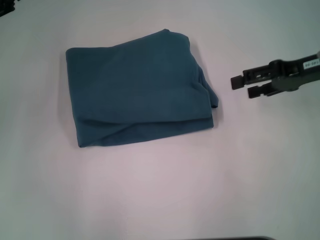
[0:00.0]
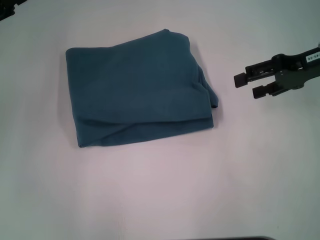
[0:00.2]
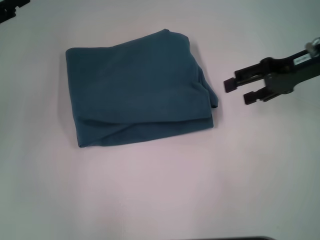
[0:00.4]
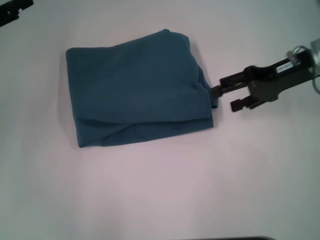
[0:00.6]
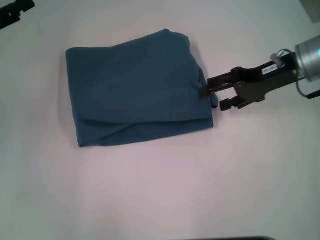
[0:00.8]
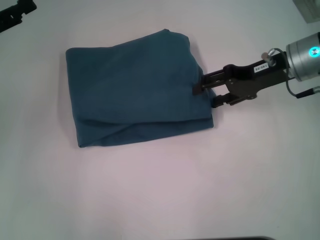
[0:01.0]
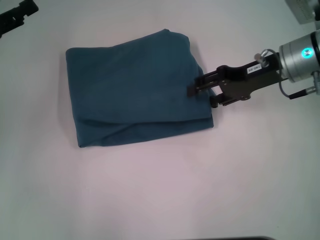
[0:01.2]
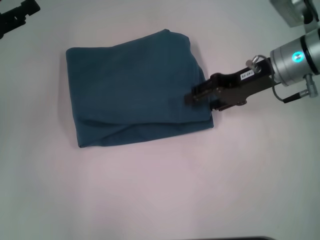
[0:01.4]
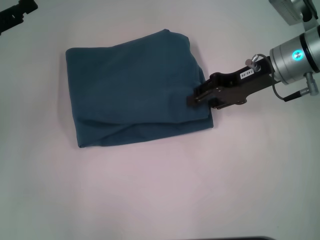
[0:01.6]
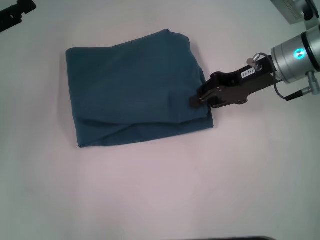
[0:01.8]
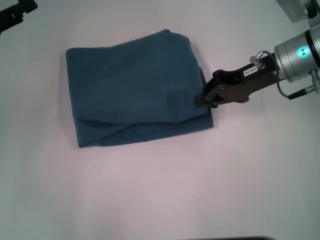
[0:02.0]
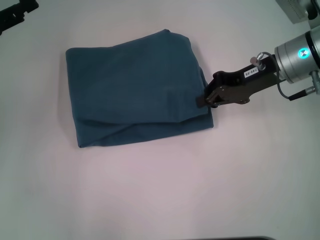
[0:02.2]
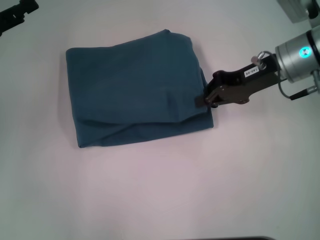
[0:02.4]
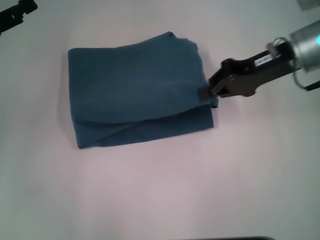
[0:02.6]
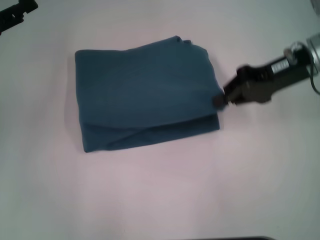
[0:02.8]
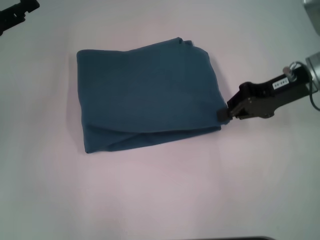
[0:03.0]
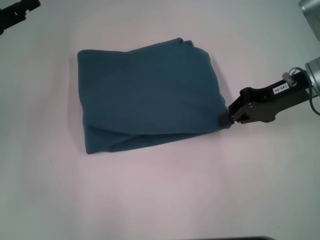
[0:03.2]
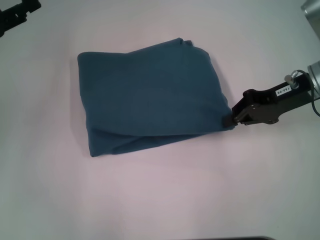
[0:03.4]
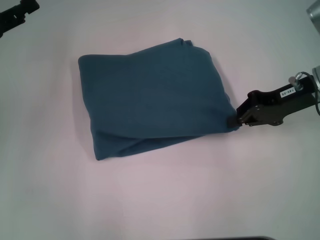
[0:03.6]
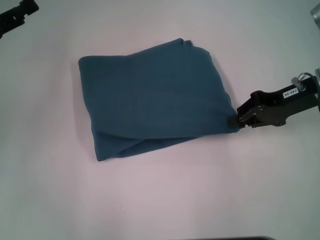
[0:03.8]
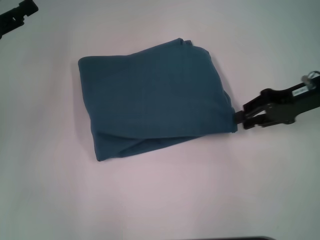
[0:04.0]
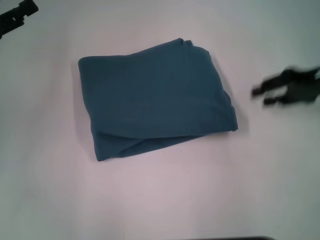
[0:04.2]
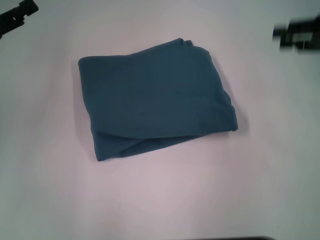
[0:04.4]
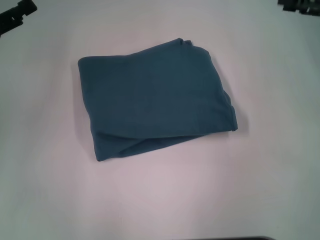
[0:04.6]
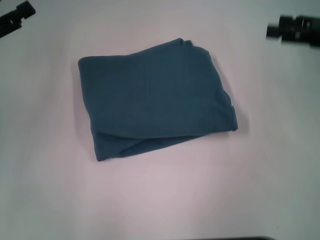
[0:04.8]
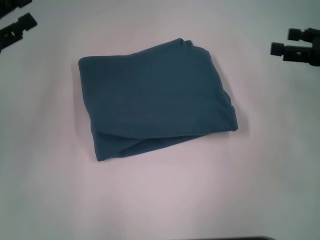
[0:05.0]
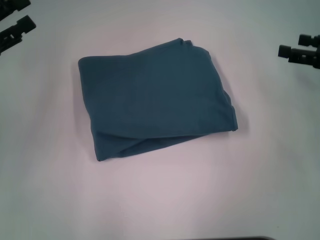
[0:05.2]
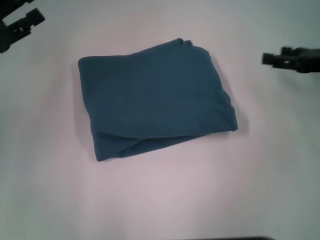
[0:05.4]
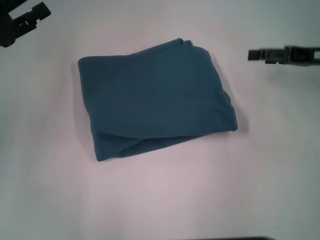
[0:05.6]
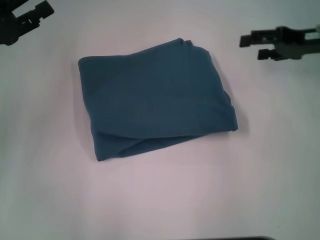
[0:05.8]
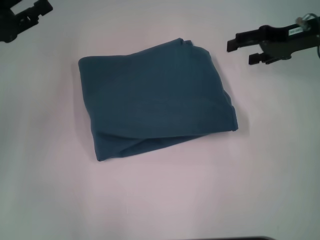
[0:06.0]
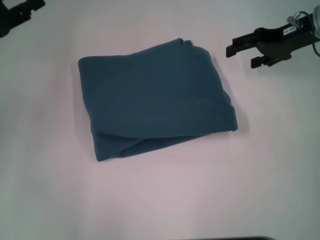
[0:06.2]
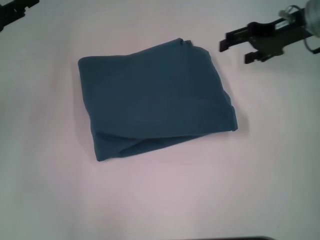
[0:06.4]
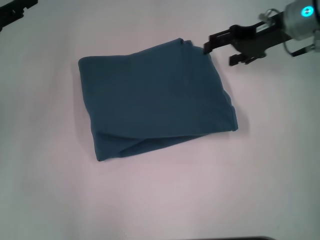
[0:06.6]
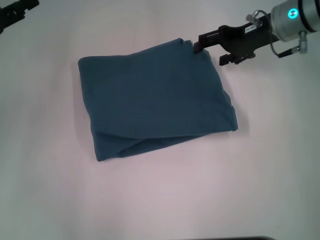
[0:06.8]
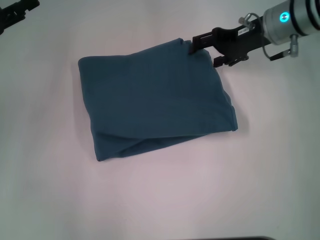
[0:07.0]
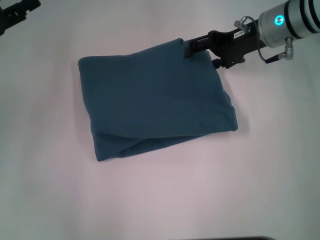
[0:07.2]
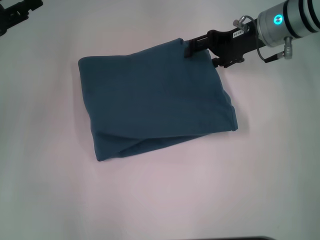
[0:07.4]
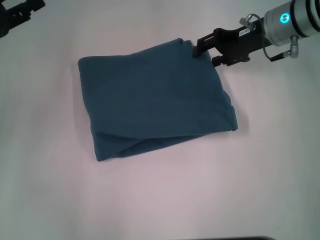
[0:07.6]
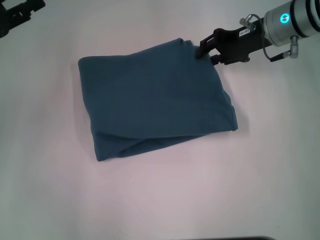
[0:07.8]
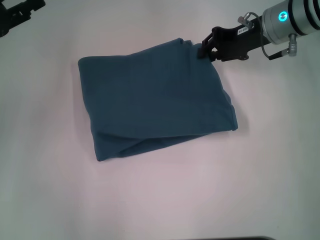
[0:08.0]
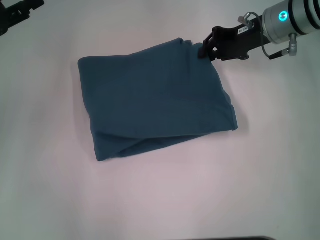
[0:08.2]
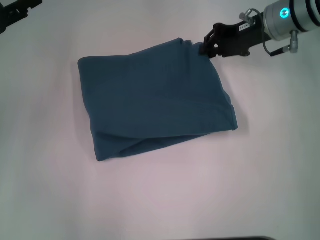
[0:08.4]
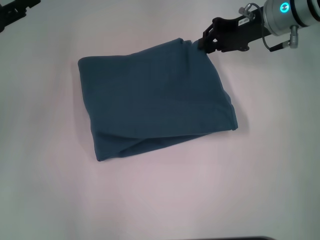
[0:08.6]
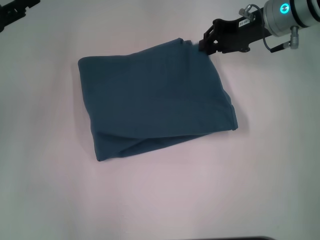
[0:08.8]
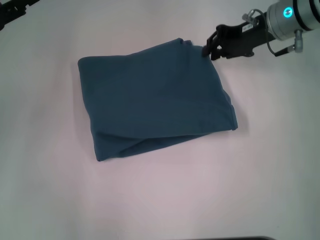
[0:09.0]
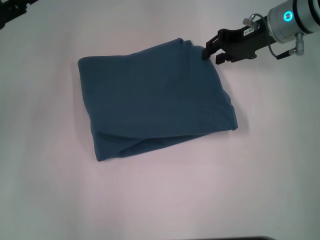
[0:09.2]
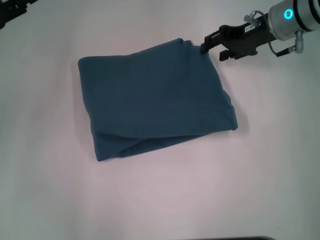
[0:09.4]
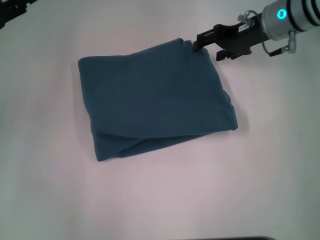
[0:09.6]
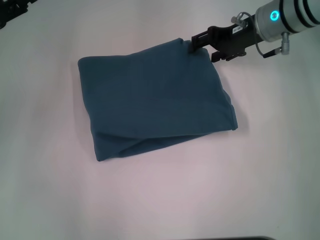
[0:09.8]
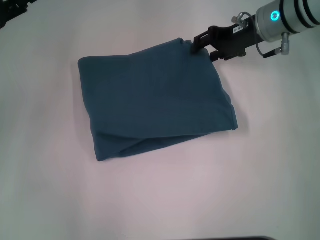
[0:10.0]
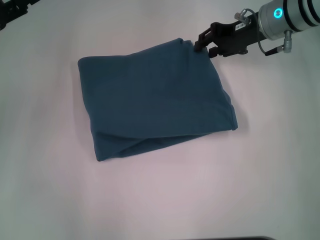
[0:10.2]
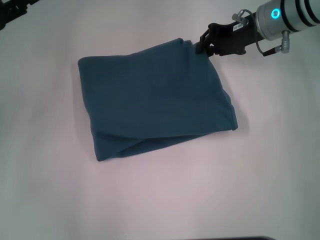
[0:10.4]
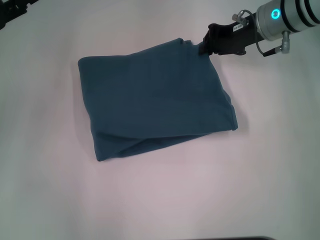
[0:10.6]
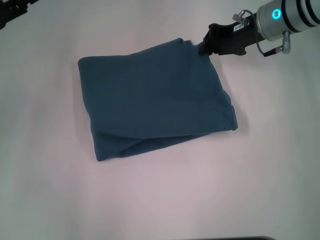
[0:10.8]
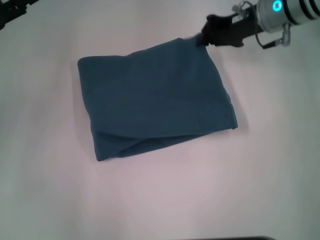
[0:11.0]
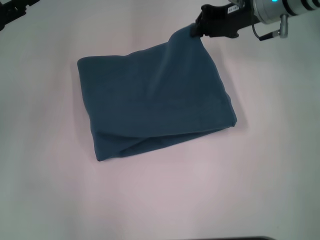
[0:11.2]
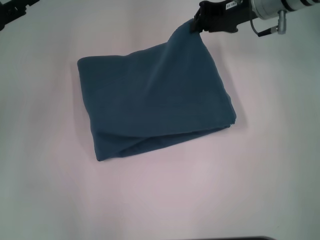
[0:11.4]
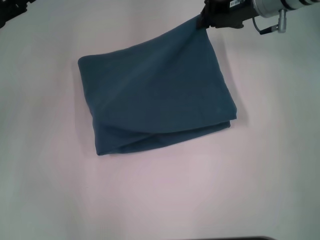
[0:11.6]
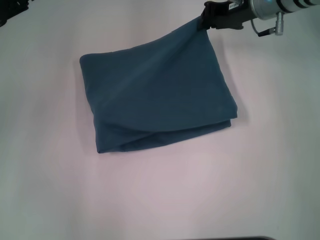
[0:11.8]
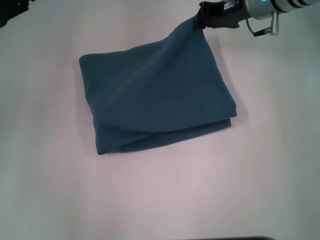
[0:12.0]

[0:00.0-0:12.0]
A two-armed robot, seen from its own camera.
0:00.0 to 0:01.6: The right gripper heads to the left, covering roughly 10 cm.
0:01.6 to 0:03.0: The right gripper closes.
0:03.0 to 0:04.4: The right gripper heads to the right, covering about 10 cm, and opens up.
0:04.4 to 0:06.0: The right gripper shifts about 10 cm to the left and forward, and opens up.
0:06.0 to 0:07.6: The right gripper shifts roughly 5 cm to the left.
0:07.6 to 0:09.0: The right gripper closes.
0:09.0 to 0:10.4: The right gripper opens and closes again.
0:10.4 to 0:12.0: The right gripper closes its fingers.

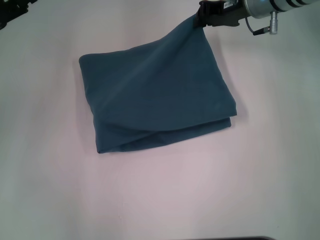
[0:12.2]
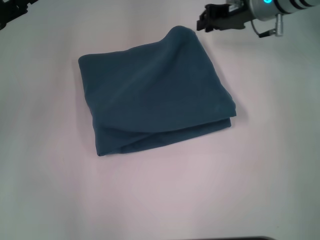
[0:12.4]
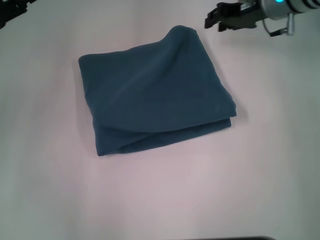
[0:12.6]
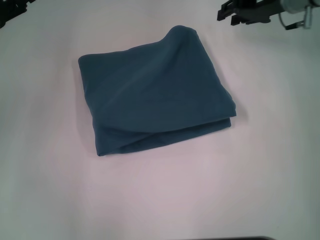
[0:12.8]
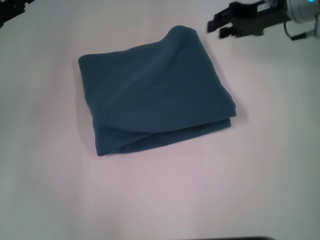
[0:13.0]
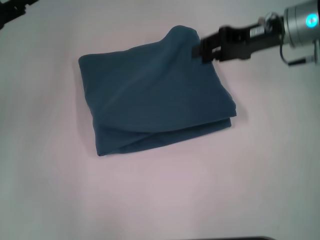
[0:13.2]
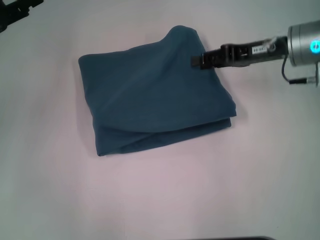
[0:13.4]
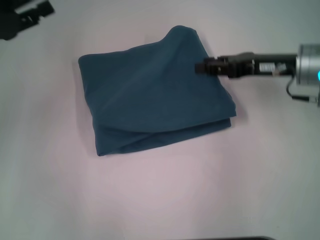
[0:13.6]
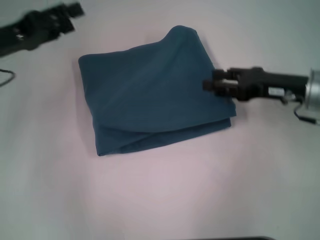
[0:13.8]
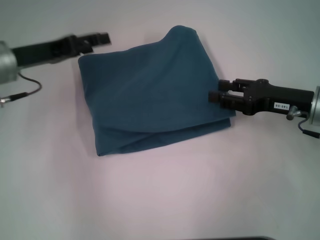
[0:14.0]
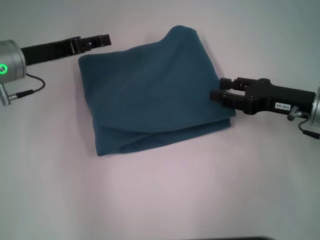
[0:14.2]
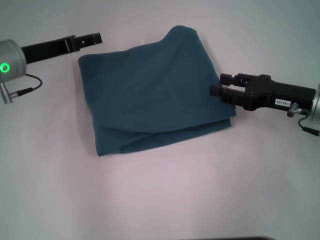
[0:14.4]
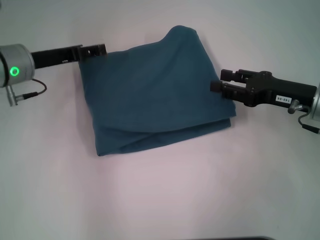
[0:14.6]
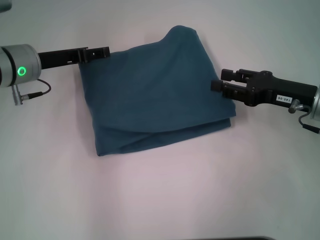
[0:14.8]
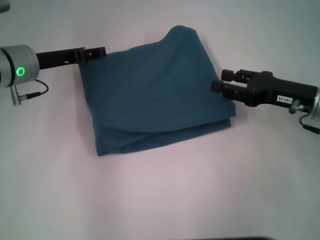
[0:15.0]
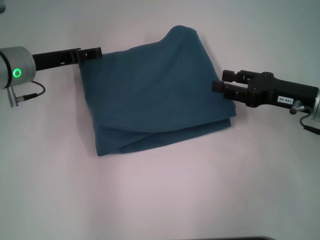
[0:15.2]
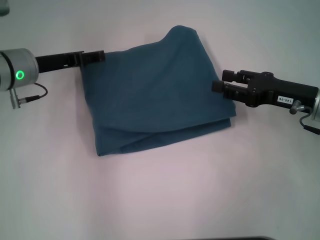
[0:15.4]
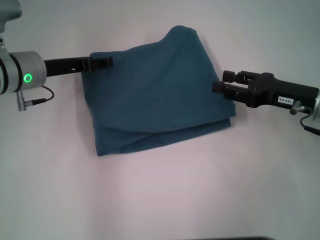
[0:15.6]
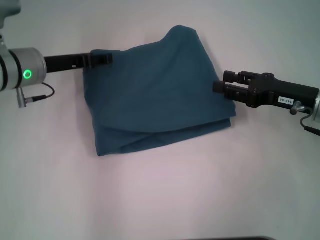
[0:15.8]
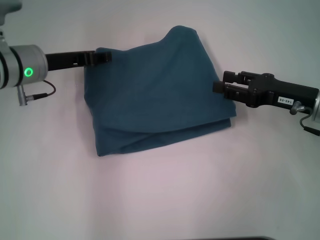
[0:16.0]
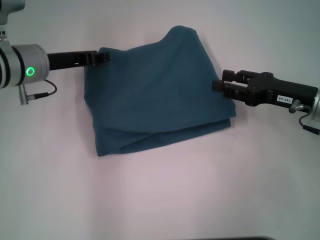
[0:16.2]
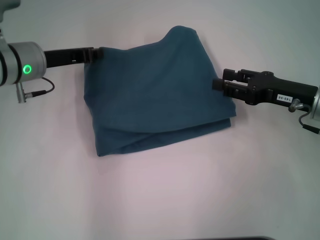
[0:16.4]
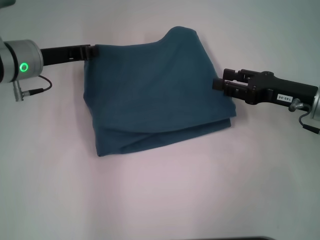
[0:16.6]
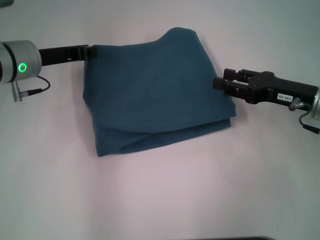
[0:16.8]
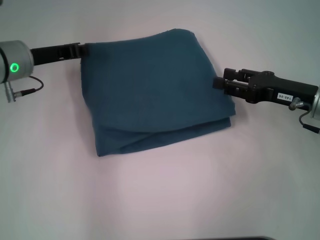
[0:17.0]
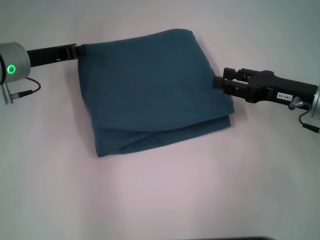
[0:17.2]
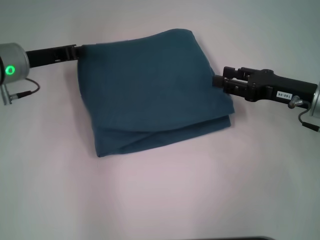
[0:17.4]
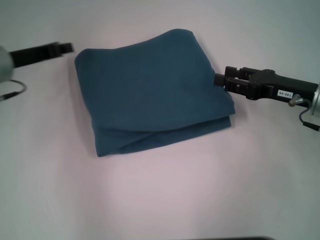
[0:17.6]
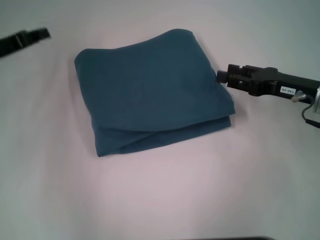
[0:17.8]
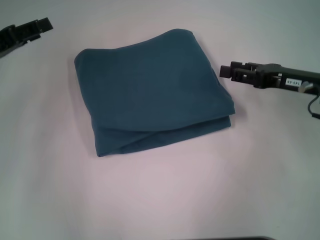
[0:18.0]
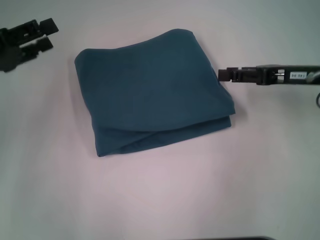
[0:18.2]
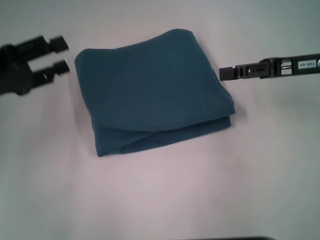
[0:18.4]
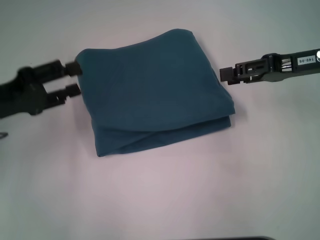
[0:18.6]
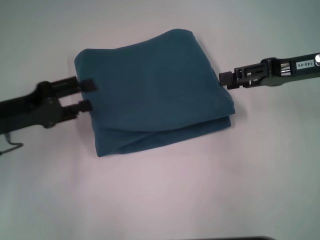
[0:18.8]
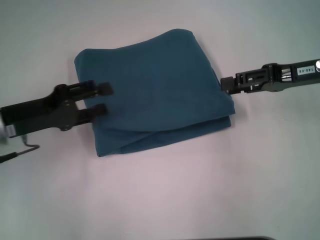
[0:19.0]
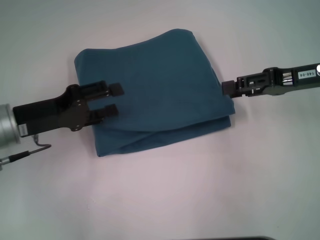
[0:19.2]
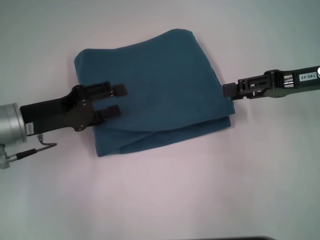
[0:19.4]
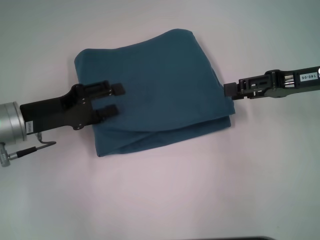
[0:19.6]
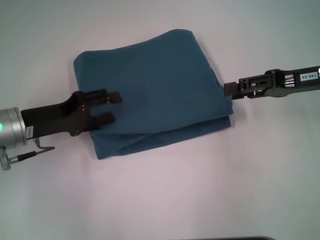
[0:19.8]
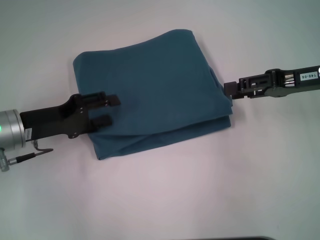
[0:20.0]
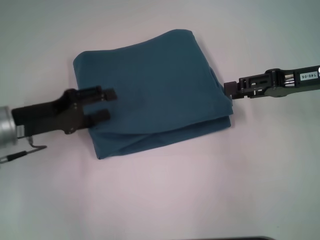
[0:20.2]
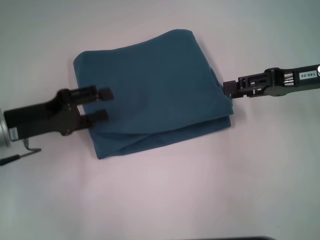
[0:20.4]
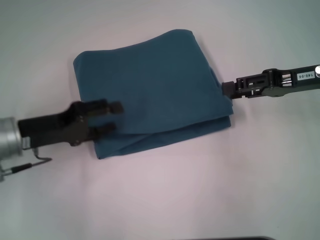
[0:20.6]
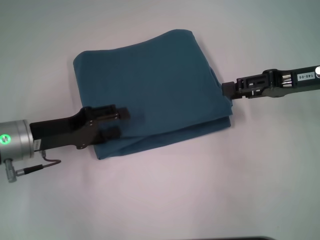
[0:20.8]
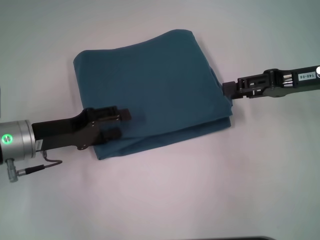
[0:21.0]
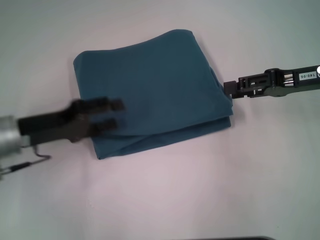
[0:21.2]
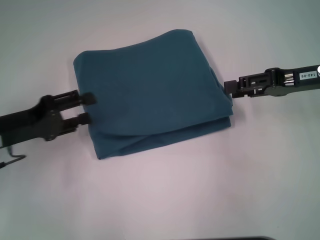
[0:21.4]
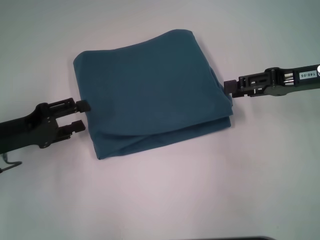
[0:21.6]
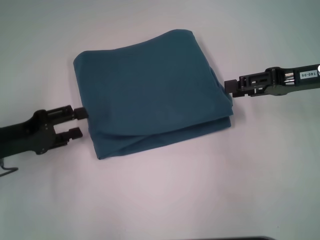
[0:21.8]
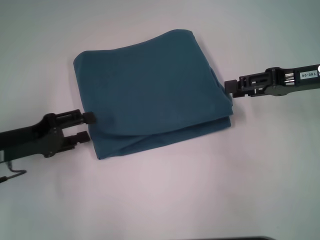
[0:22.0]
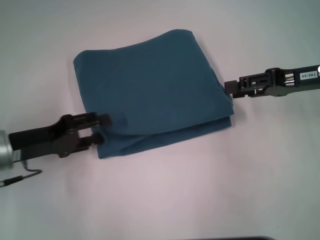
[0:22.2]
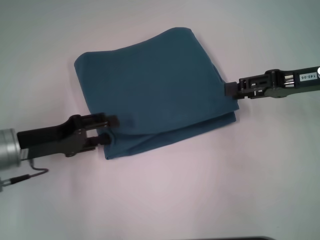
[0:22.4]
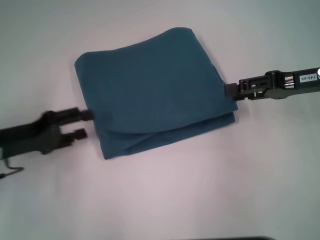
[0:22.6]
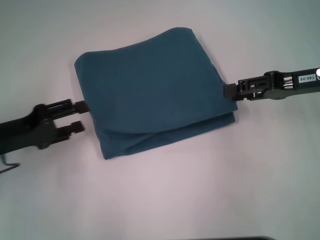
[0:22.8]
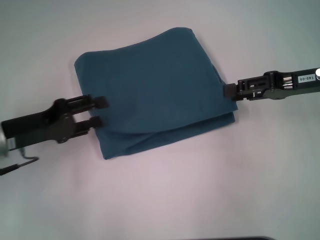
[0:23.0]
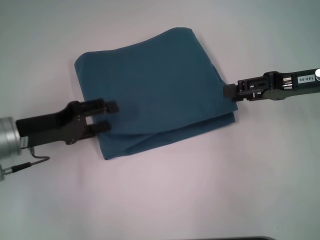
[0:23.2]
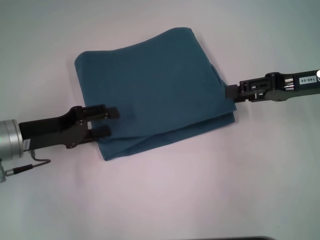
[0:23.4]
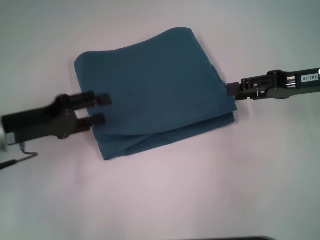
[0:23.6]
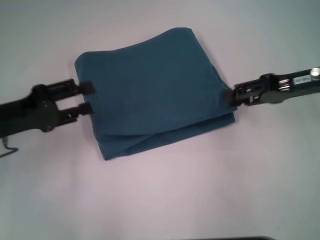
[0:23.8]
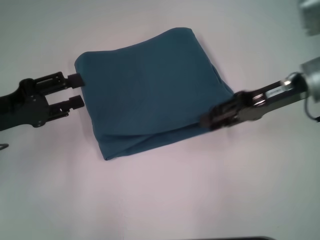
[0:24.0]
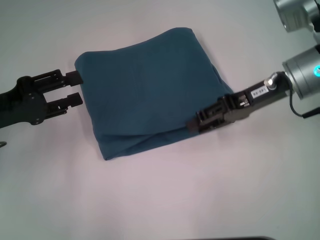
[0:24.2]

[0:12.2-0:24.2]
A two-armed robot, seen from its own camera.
0:12.2 to 0:13.8: The right gripper moves backward, to the right and downward, approximately 20 cm, and opens its fingers.
0:13.8 to 0:15.2: The left gripper changes place by roughly 10 cm.
0:15.2 to 0:16.6: The left gripper closes up.
0:16.6 to 0:18.2: The right gripper moves some 5 cm; the left gripper heads to the left and backward, covering roughly 10 cm, and opens its fingers.
0:18.2 to 0:19.8: The left gripper heads downward and to the right, covering roughly 10 cm.
0:19.8 to 0:22.6: The grippers move only a little.
0:22.6 to 0:24.2: The right gripper moves to the left, roughly 5 cm.
